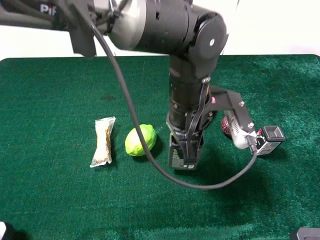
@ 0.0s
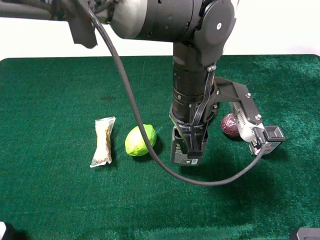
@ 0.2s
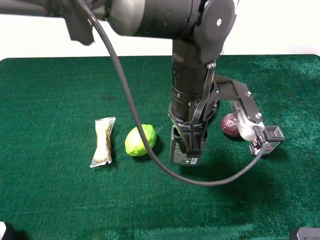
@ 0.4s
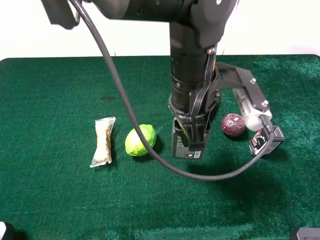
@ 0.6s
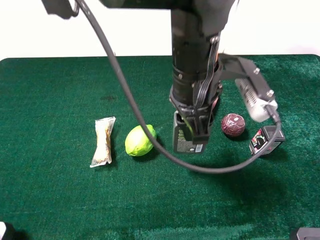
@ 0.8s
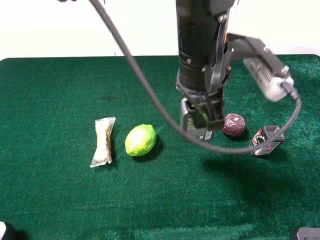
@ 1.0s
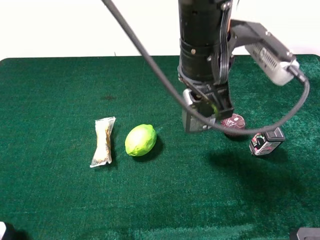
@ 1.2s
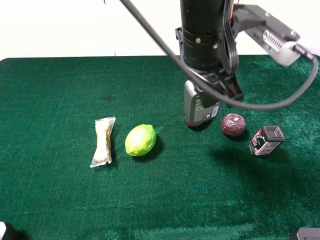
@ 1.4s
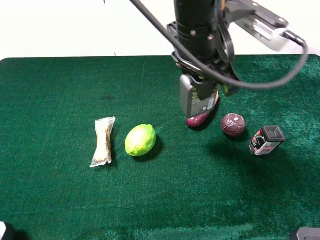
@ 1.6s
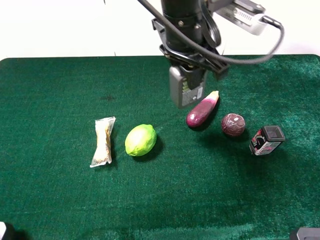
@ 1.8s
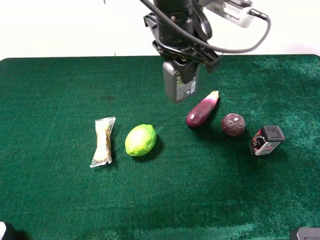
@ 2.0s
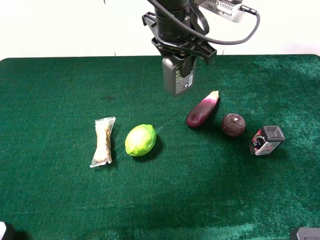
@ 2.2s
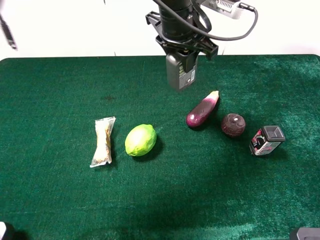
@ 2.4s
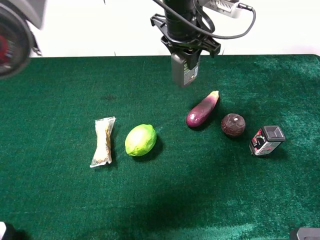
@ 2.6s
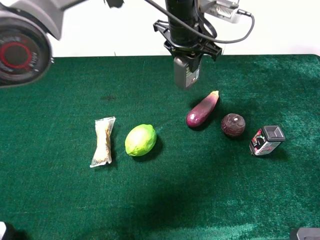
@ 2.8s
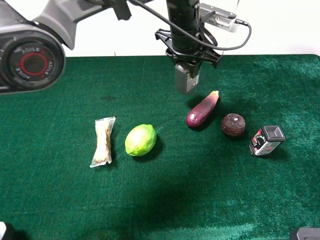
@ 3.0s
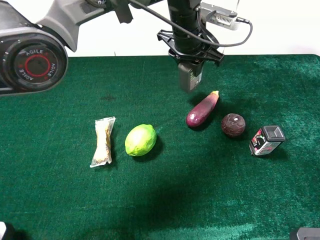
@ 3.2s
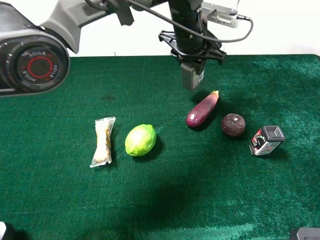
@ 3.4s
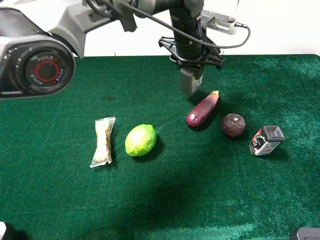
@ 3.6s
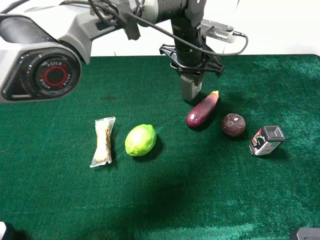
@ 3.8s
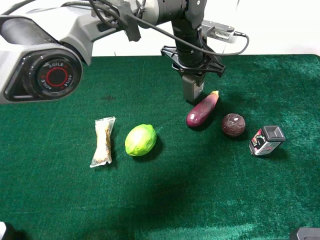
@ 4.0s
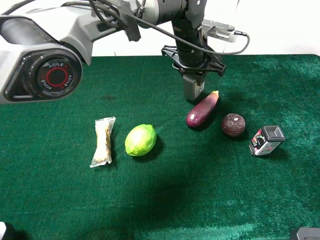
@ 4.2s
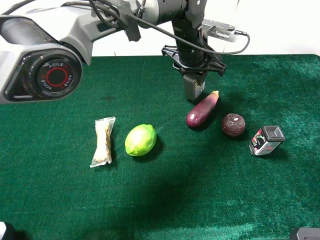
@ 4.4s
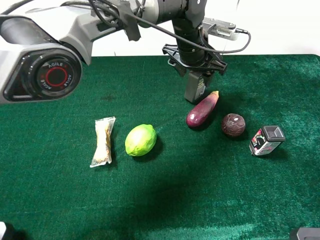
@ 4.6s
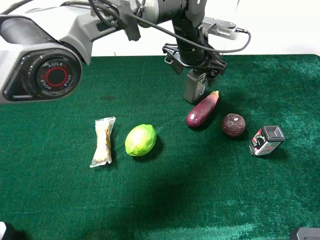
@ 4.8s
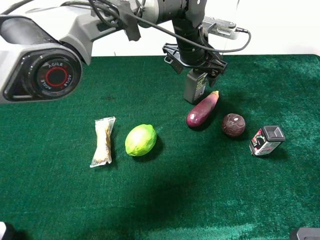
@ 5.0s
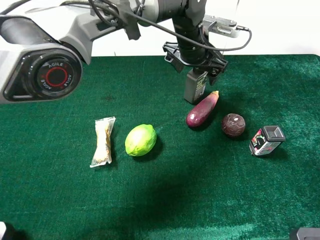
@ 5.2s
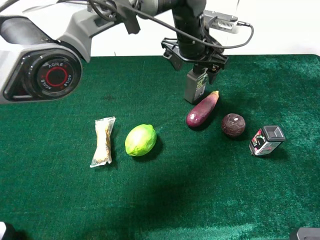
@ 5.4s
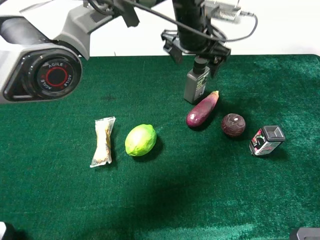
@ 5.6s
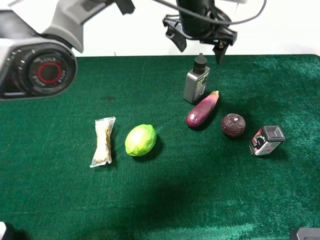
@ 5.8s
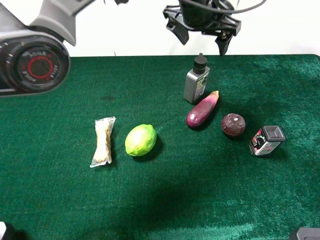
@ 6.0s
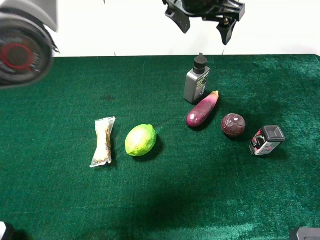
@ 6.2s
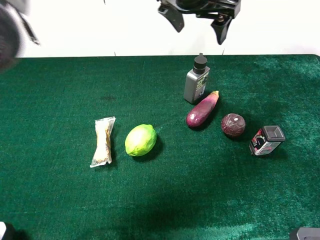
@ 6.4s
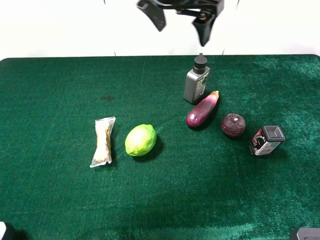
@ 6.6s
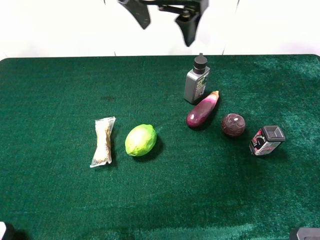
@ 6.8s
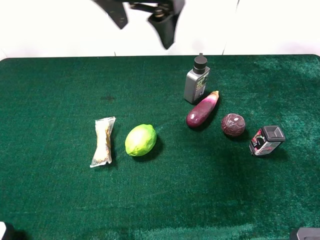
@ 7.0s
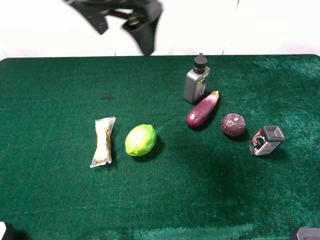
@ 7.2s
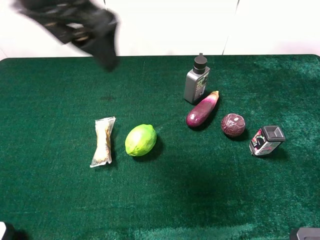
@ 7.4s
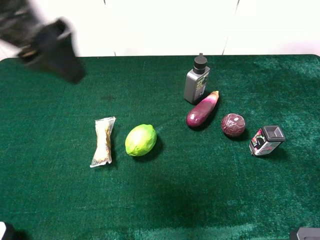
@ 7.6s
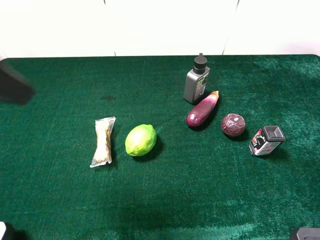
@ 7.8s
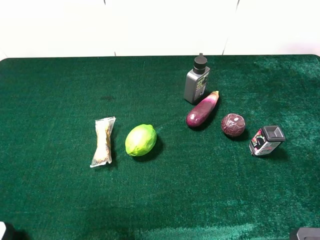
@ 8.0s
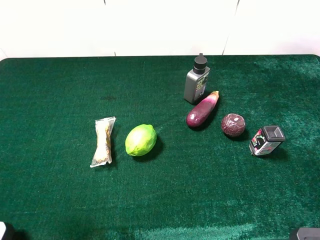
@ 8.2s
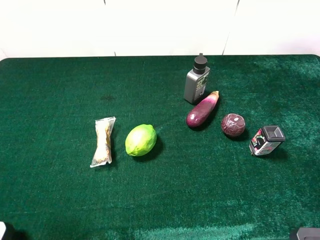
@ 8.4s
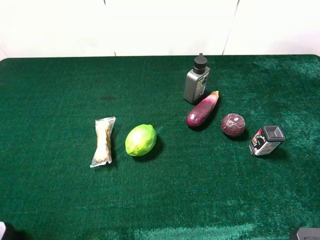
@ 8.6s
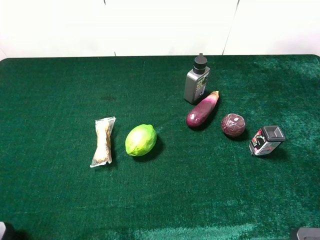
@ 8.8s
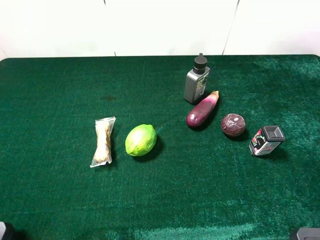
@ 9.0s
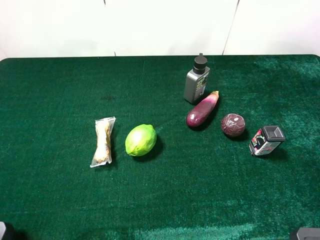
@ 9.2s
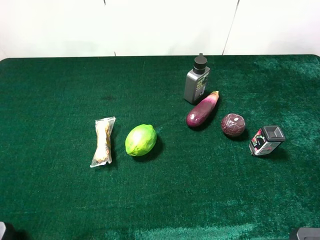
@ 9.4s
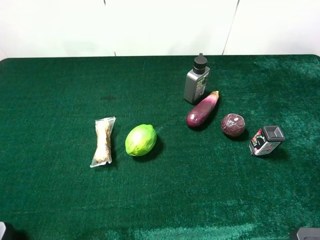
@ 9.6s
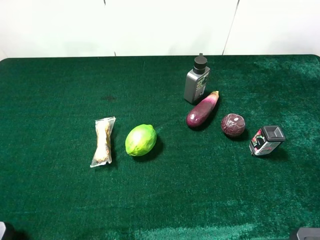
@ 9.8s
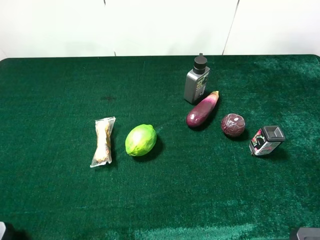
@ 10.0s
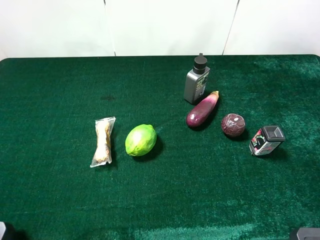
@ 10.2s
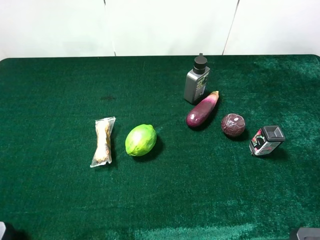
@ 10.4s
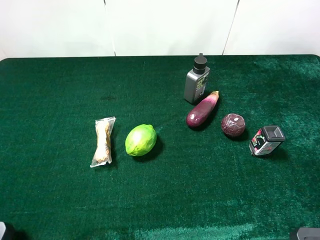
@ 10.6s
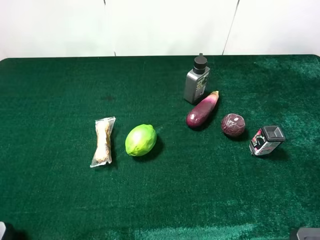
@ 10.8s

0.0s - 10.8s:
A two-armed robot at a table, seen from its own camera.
Task of the whole recording: the gripper move the object.
Step, 0.0s - 5.6s: Place the hard facial cleanser on the table with the left gripper.
0.0s - 1.6s: The left gripper travels upward by about 10 cm.
1.6s - 3.0s: The left gripper goes roughly 15 cm forward and downward.
3.0s - 4.6s: The left gripper opens up.
4.6s - 6.2s: The left gripper heads upward, covering roughly 15 cm.
6.2s - 7.8s: The left gripper travels to the left and backward by some 35 cm.
7.8s - 9.2s: The left gripper shifts some 15 cm backward, to the left and downward.

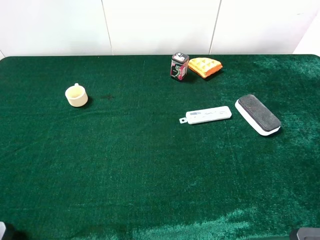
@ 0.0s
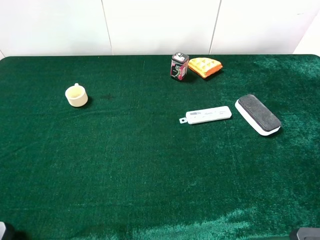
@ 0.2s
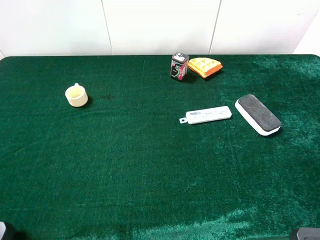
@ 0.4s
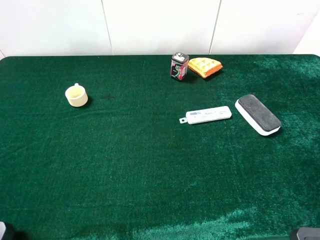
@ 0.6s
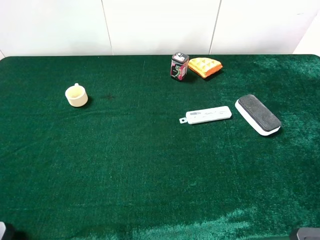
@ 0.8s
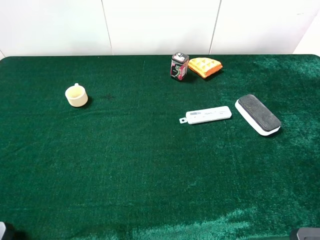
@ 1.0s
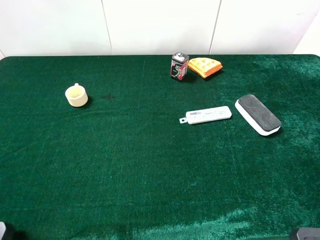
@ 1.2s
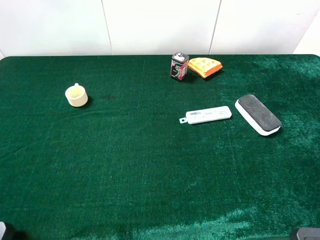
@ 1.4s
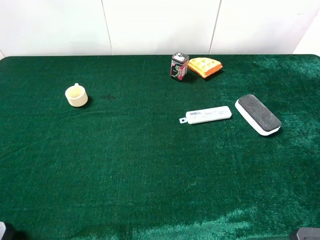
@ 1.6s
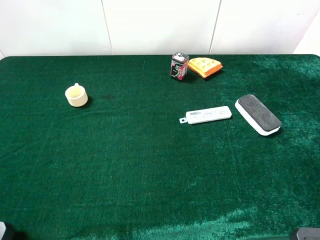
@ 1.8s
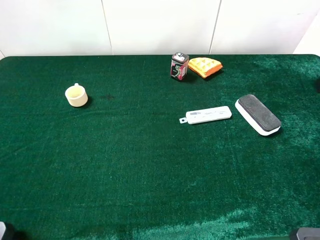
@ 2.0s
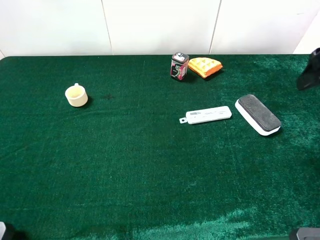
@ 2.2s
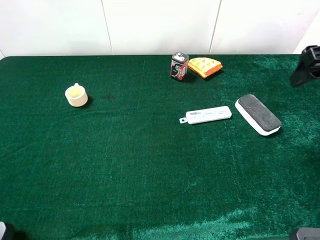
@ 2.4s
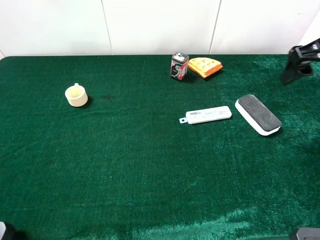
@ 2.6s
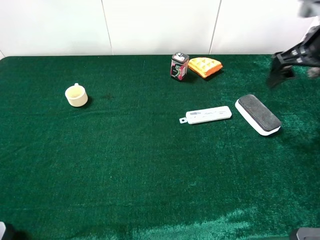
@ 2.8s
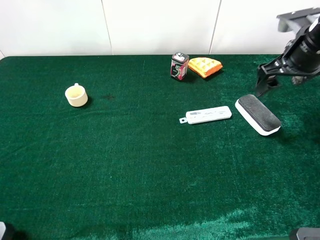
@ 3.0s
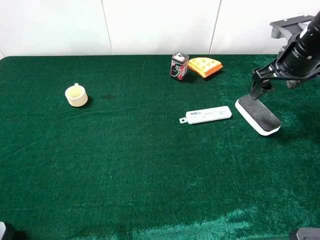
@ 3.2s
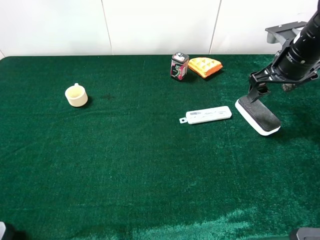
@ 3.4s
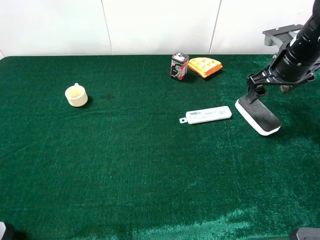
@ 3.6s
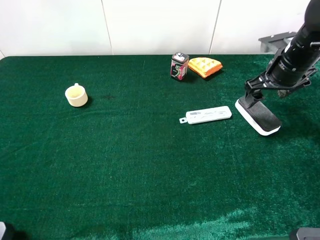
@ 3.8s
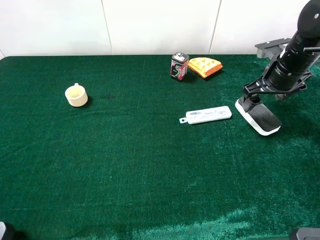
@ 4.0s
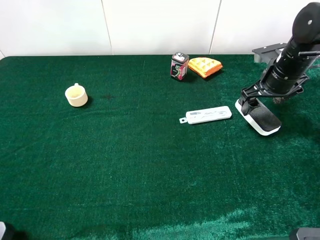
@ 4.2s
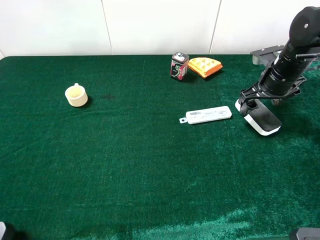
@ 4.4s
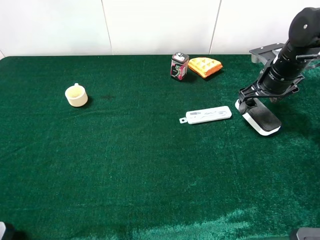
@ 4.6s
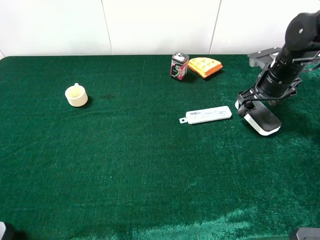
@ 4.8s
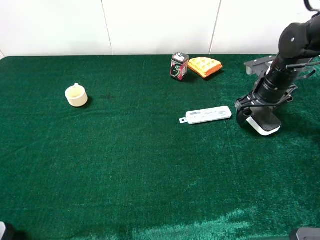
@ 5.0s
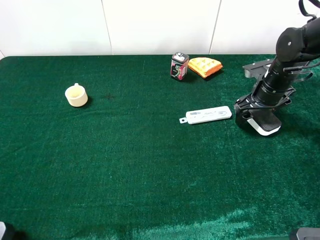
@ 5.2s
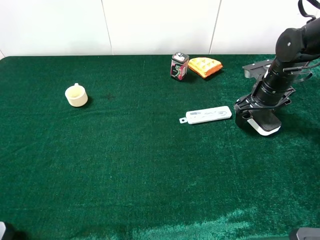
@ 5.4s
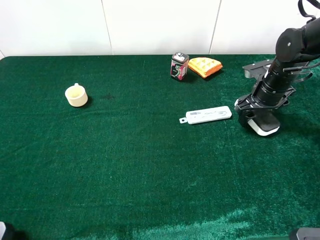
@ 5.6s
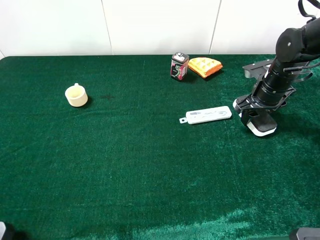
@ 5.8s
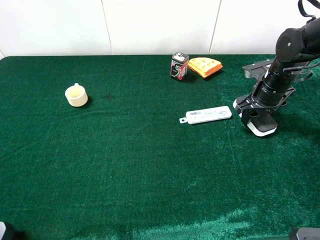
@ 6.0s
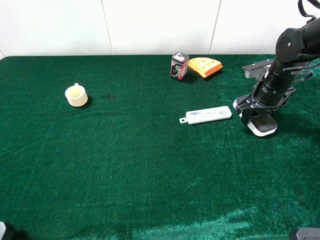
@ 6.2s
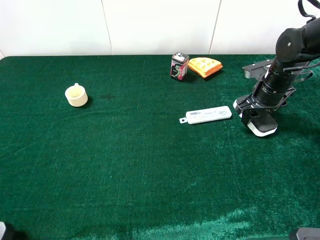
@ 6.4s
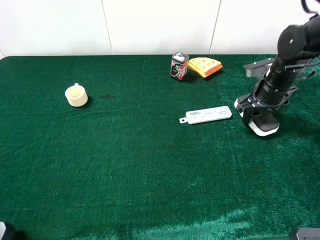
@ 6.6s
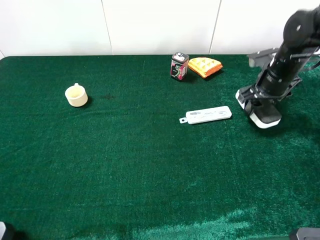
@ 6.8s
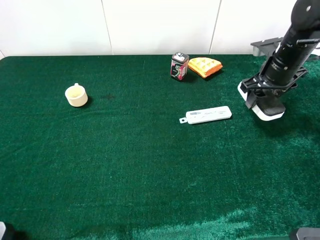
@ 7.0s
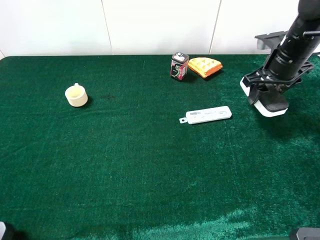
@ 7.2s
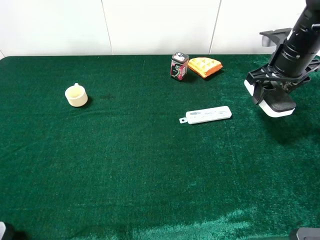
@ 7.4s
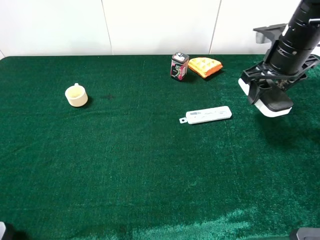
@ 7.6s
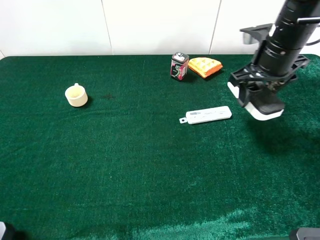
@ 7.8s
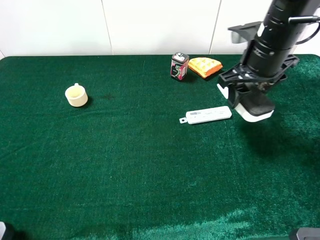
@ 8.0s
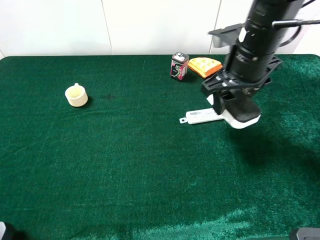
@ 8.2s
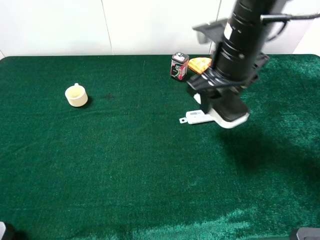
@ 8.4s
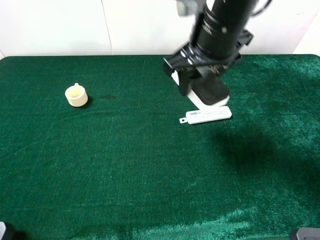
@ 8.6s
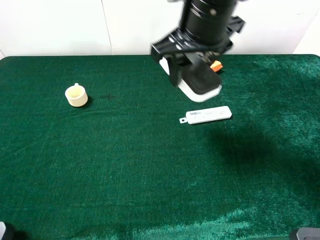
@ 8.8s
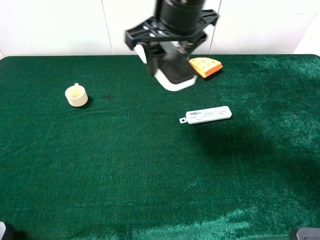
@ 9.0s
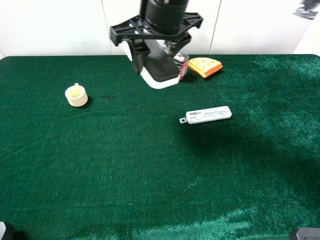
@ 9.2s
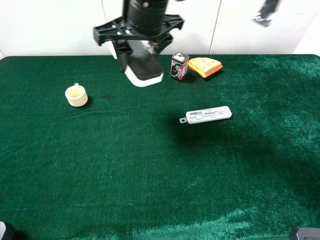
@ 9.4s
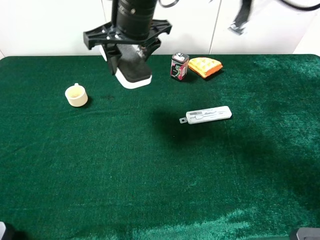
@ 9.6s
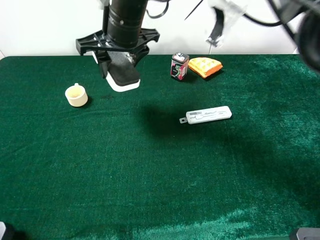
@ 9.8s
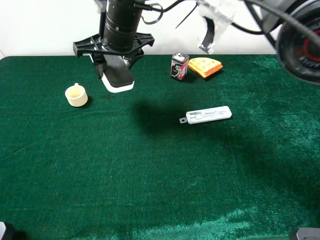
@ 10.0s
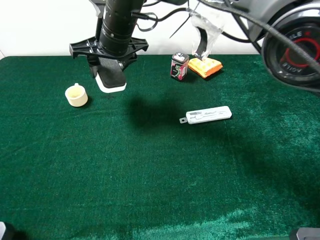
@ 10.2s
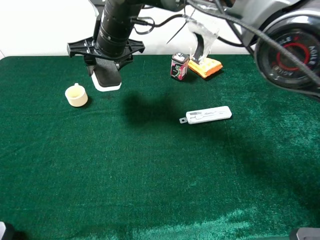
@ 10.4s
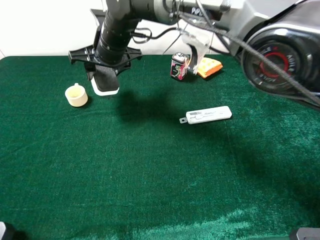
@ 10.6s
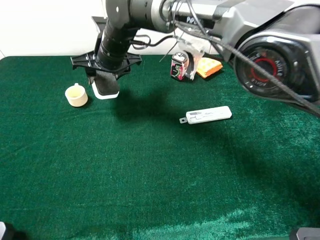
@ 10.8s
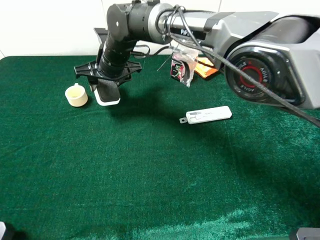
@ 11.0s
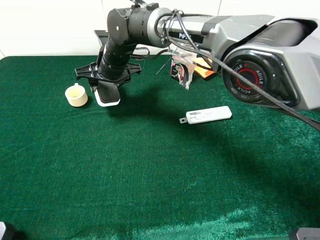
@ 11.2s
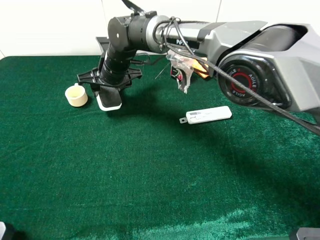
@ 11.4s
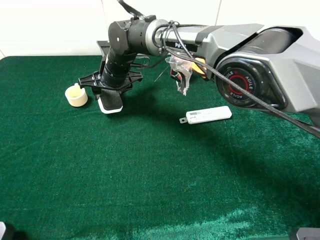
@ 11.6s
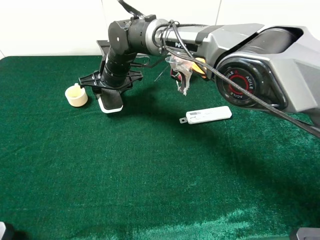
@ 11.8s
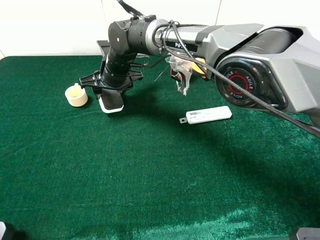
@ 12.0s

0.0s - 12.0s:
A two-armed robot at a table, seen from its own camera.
Task of the whole recording: the gripper move the object.
Step, 0.0s - 6.4s: Grasp the whiite blackboard earser with the right gripper.
1.6s - 3.0s: The right gripper is displaced forward and downward by roughly 20 cm.
3.0s - 4.4s: The right gripper goes about 10 cm downward.
4.4s - 6.0s: The right gripper closes.
6.0s - 7.6s: The right gripper travels upward by roughly 10 cm.
7.6s - 9.0s: The right gripper goes roughly 20 cm to the left.
9.0s - 10.4s: The right gripper shifts approximately 15 cm to the left, downward and forward.
10.4s - 12.0s: The right gripper travels downward by approximately 10 cm.
